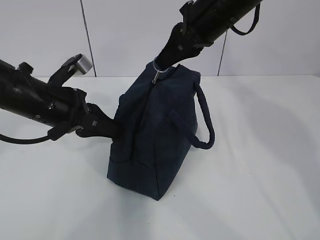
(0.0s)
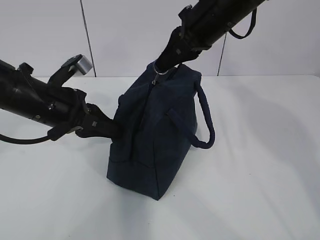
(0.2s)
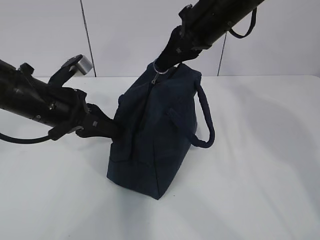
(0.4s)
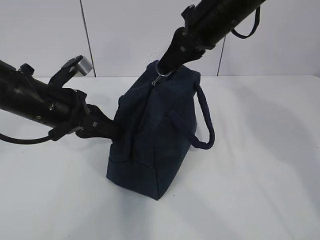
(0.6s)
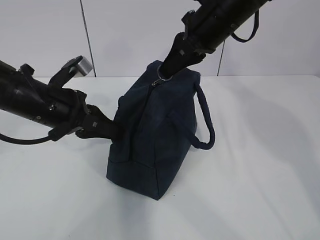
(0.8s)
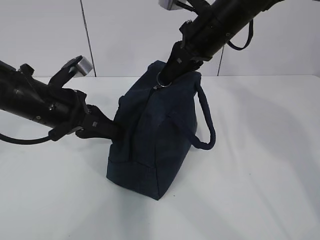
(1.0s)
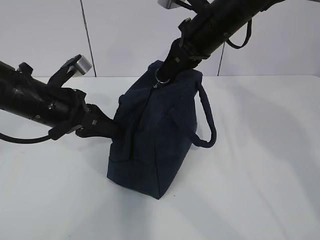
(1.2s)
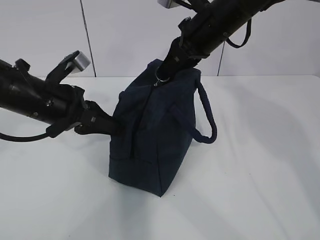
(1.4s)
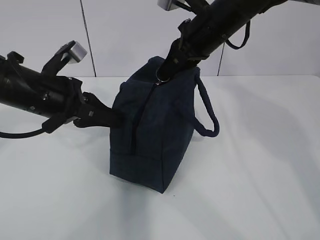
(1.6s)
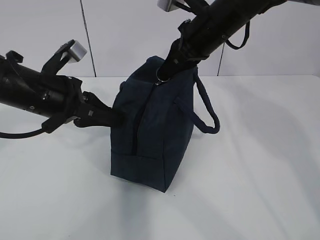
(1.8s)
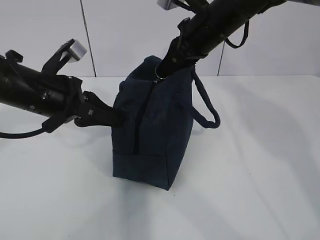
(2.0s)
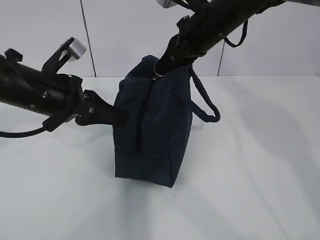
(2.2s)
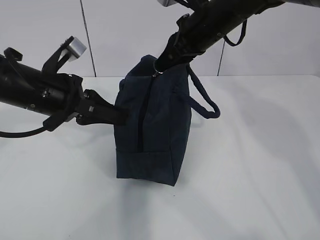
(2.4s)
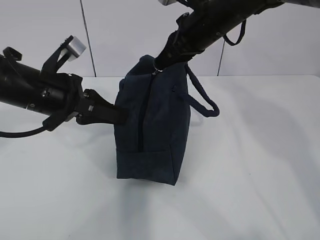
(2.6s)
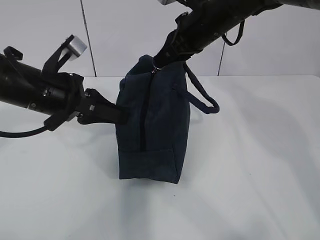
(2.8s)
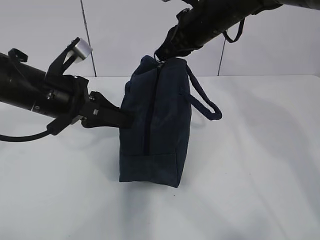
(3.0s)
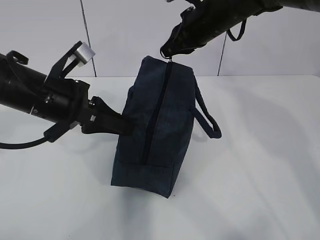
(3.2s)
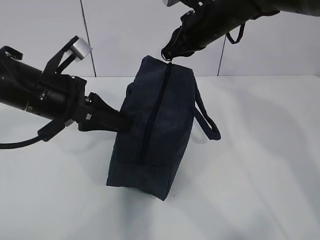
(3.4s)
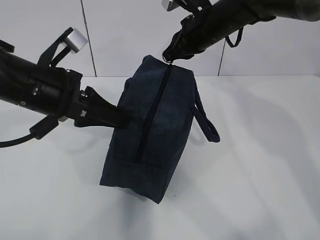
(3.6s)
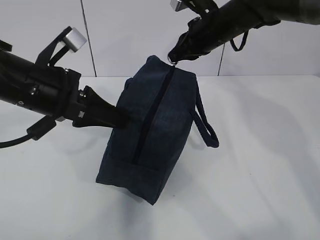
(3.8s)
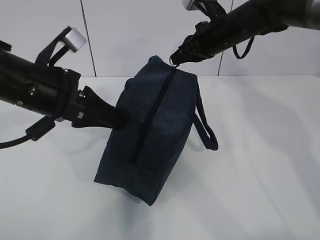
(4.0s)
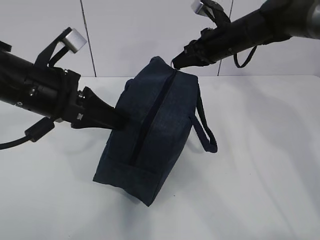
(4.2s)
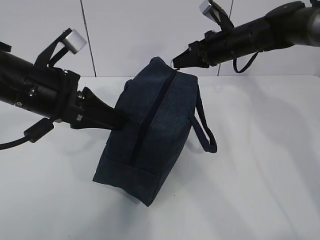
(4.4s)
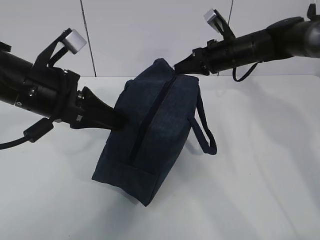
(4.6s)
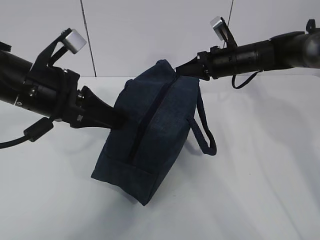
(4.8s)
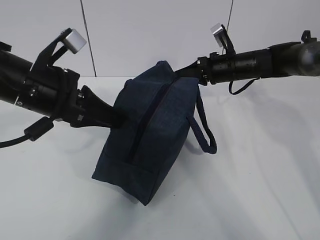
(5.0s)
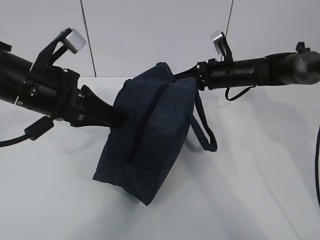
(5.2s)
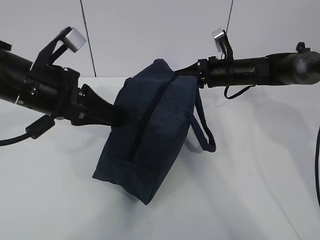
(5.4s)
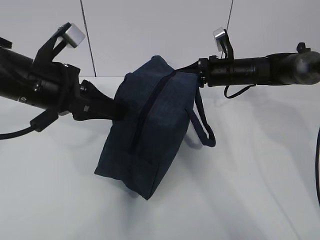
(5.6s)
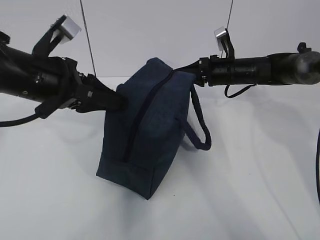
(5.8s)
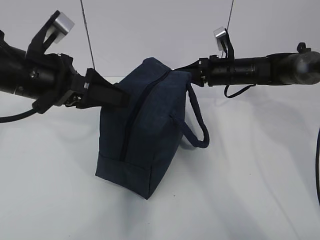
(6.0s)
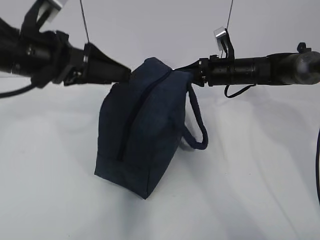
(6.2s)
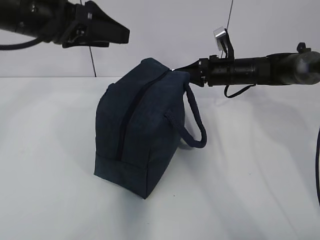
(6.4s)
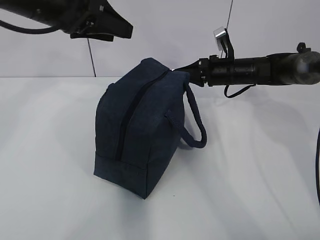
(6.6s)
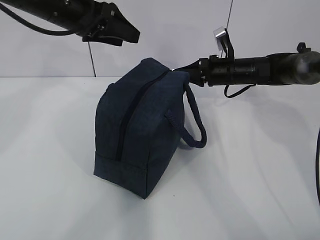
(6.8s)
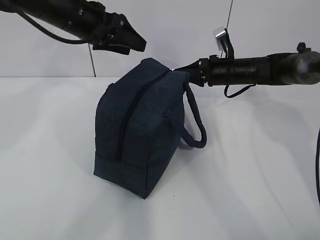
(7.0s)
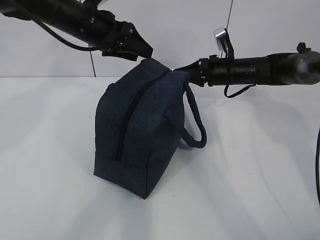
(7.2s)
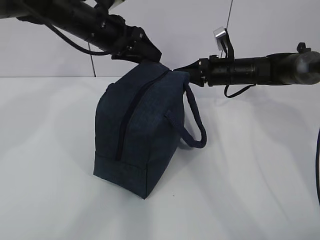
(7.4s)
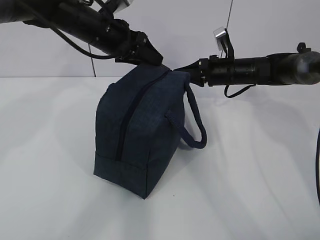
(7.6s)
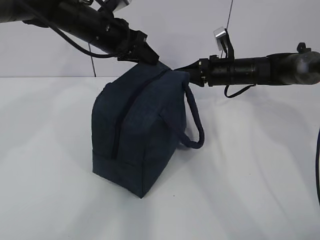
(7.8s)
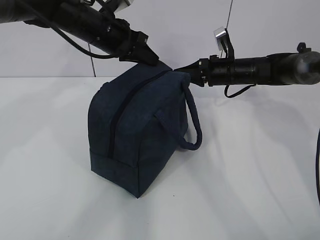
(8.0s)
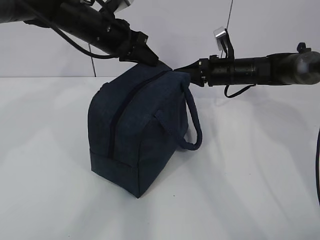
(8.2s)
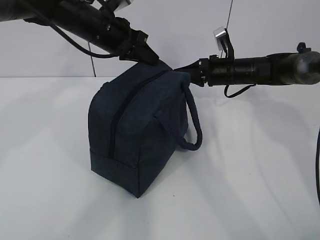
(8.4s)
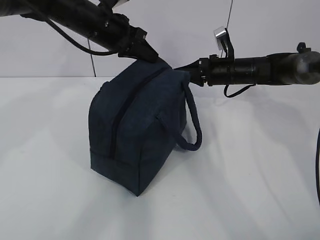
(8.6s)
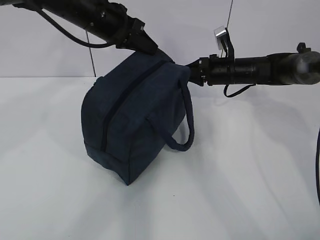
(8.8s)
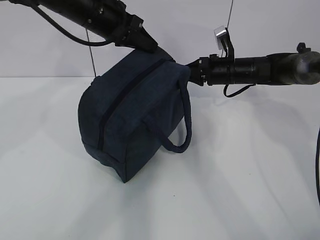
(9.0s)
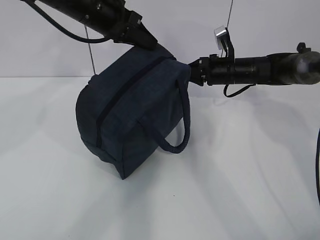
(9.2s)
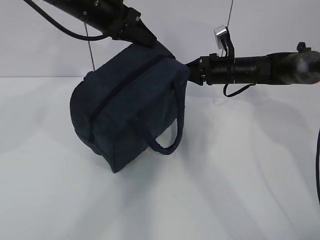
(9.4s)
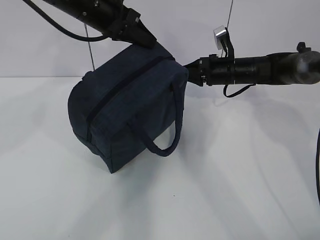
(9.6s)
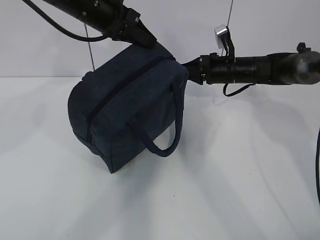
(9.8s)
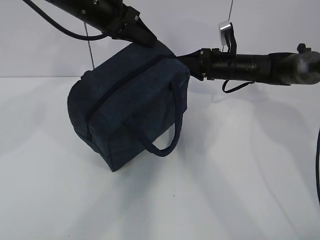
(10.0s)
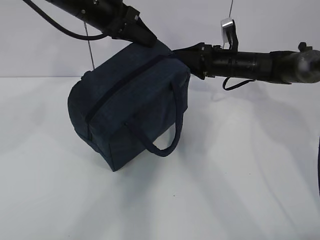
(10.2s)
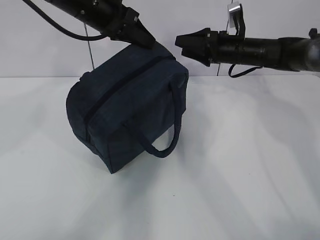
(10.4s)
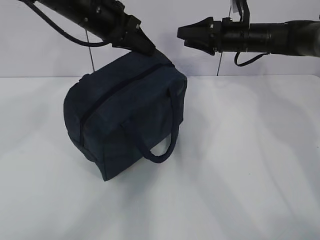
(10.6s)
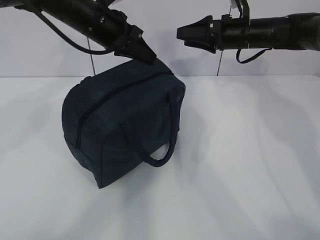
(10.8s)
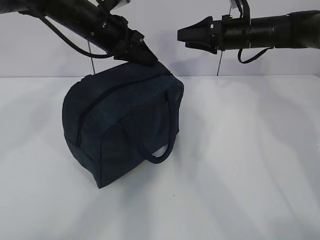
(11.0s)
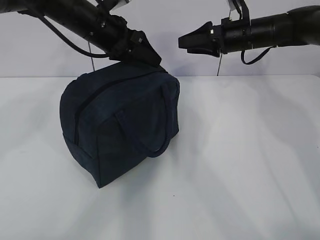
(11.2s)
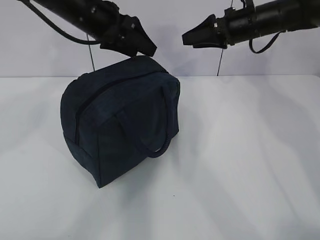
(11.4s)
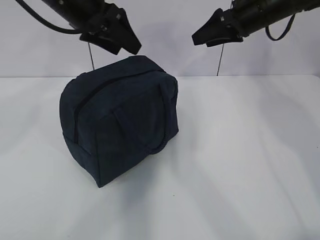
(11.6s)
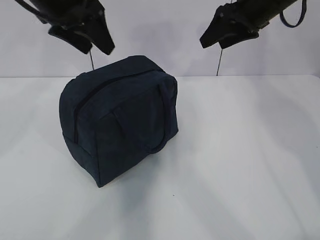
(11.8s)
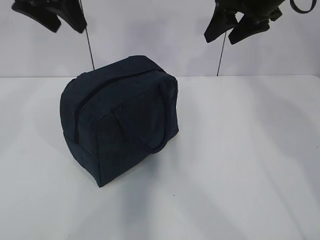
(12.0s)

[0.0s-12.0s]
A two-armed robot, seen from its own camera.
0.0s to 3.0s: There are only small adjustments of the grippers.
3.0s to 4.4s: The right gripper is displaced downward and to the right by about 10 cm.
4.4s to 6.0s: The right gripper is displaced downward by roughly 5 cm. The left gripper opens its fingers.
6.0s to 7.6s: The left gripper heads forward and to the right, covering roughly 15 cm.
7.6s to 9.0s: The left gripper closes up.
9.0s to 10.4s: The right gripper moves upward, roughly 5 cm, and opens up.
10.4s to 12.0s: The right gripper moves upward and backward, about 15 cm. The left gripper goes approximately 15 cm upward, to the left and backward, and opens.

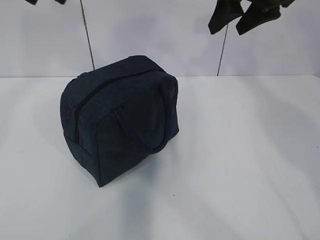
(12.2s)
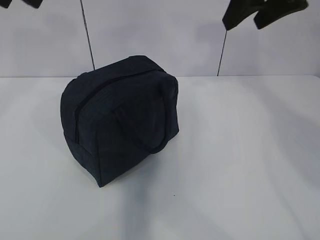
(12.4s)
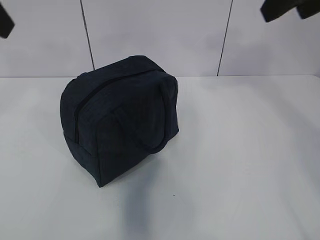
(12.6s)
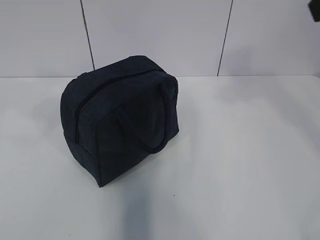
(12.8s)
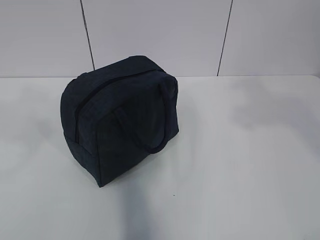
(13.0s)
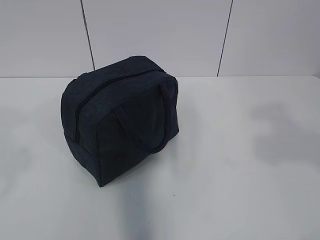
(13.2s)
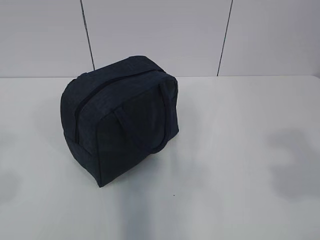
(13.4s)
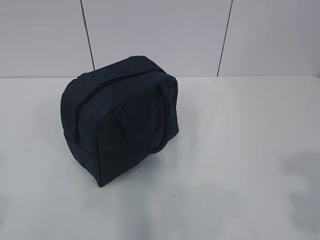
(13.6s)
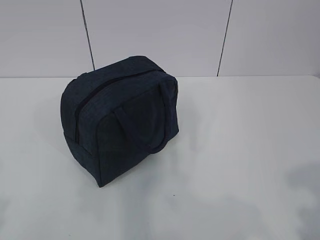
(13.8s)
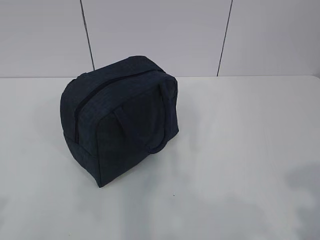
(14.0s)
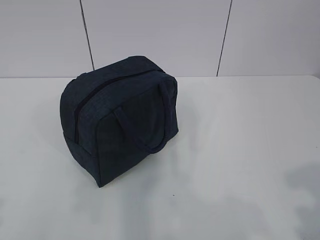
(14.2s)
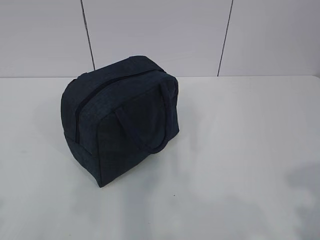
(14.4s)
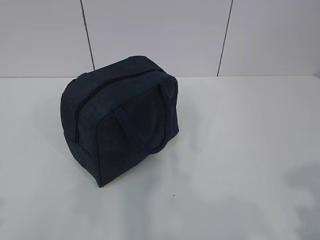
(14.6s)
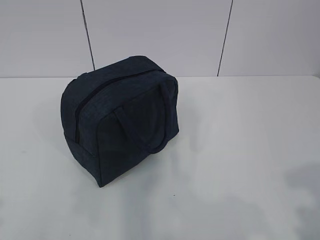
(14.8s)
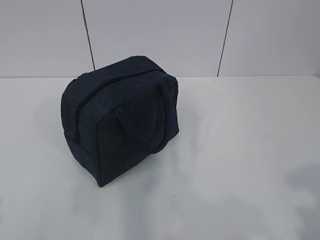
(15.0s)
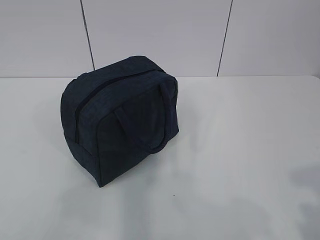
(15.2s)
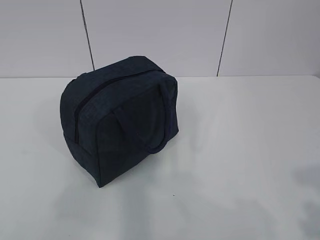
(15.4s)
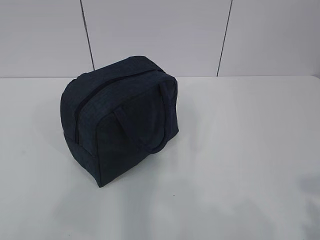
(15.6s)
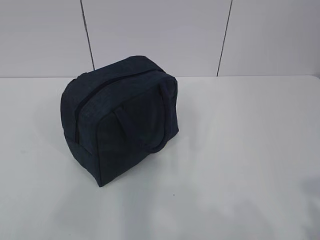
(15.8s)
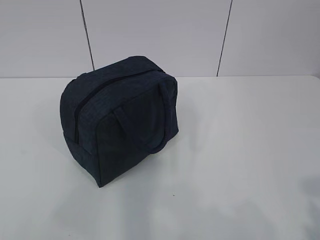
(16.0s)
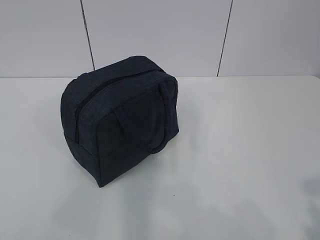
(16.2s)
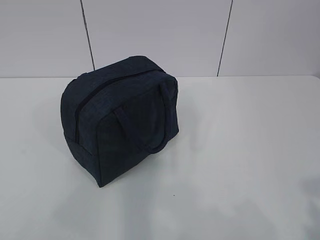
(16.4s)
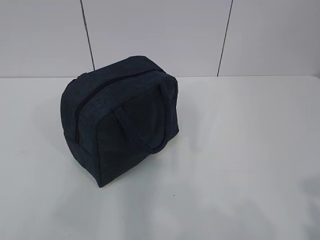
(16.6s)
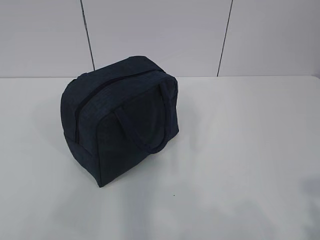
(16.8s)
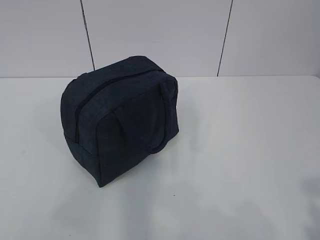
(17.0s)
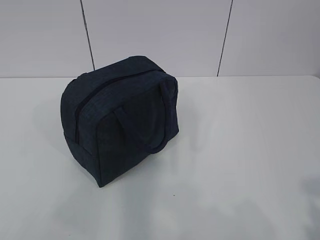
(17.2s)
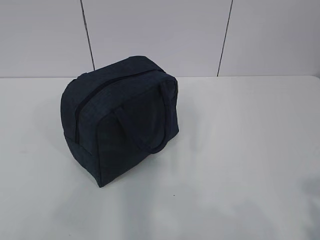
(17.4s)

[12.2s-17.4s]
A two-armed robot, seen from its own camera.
12.2s to 14.0s: The right gripper is displaced backward by some 35 cm. Meanwhile the left gripper is displaced backward and downward by about 35 cm.
15.6s to 17.4s: Neither gripper changes place.

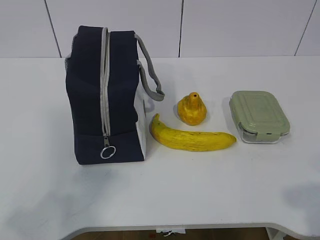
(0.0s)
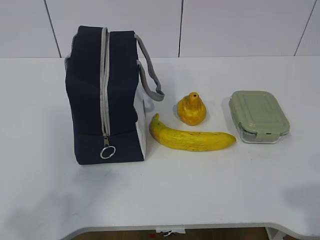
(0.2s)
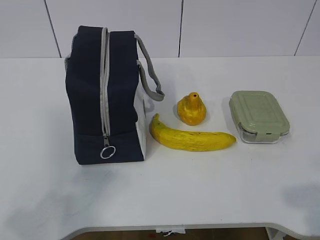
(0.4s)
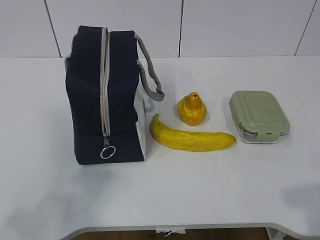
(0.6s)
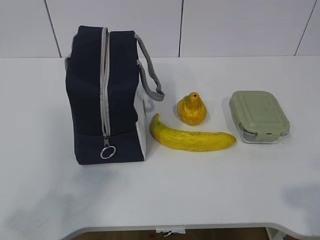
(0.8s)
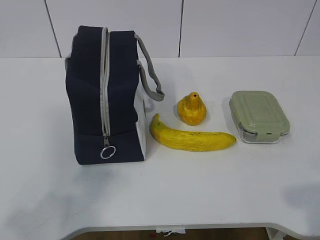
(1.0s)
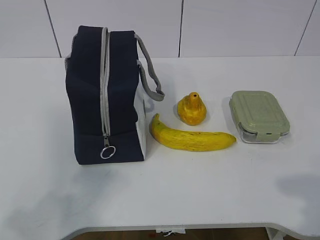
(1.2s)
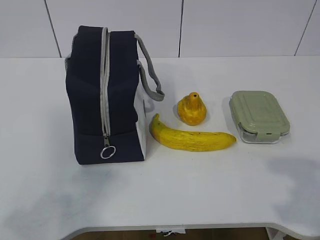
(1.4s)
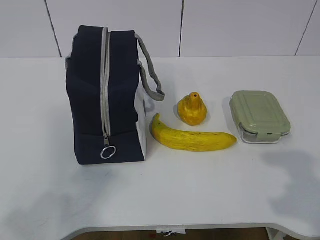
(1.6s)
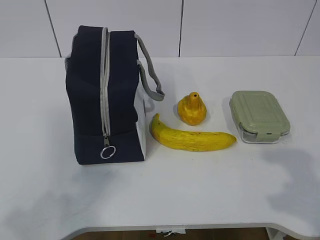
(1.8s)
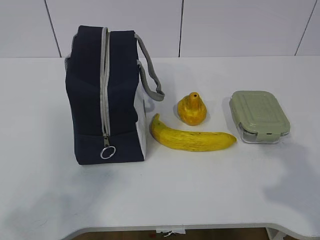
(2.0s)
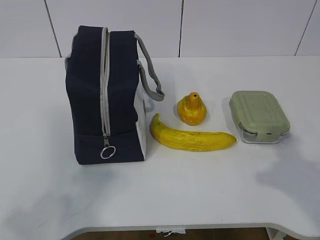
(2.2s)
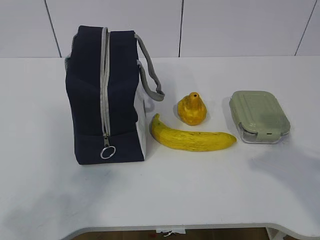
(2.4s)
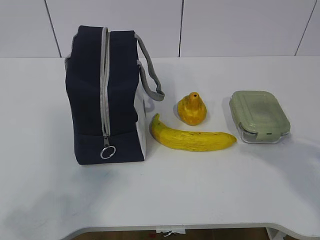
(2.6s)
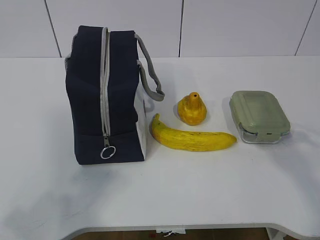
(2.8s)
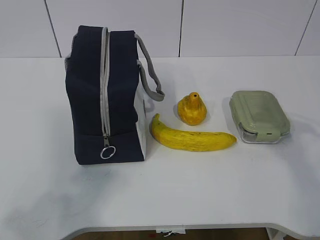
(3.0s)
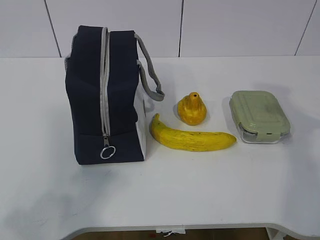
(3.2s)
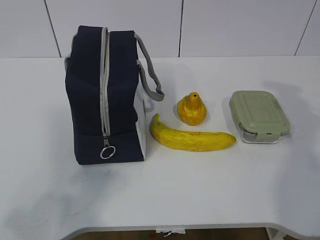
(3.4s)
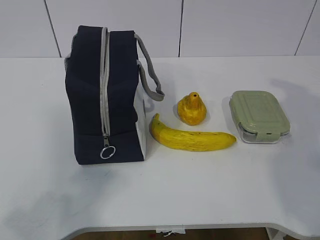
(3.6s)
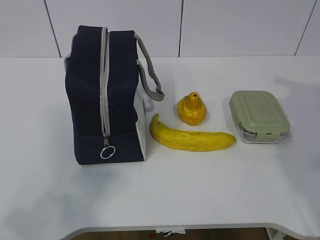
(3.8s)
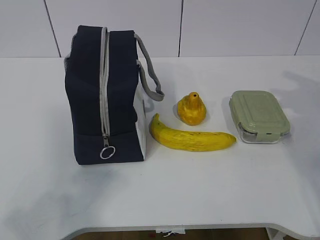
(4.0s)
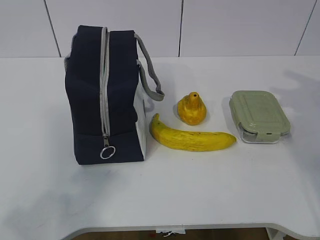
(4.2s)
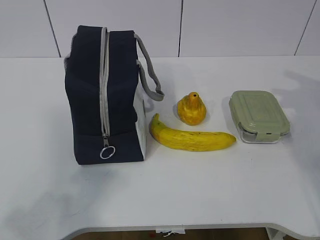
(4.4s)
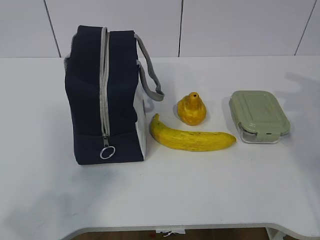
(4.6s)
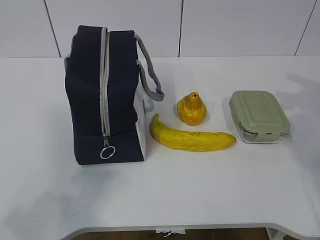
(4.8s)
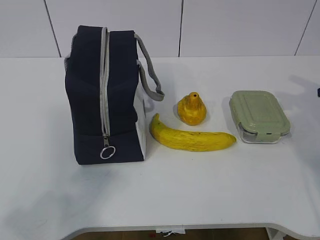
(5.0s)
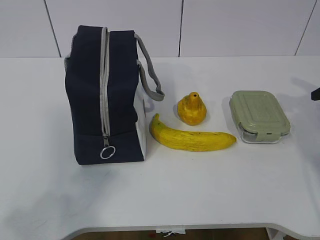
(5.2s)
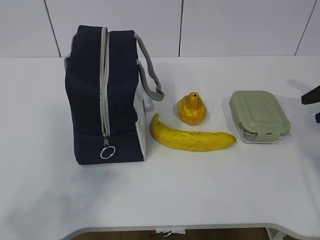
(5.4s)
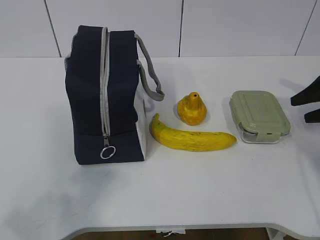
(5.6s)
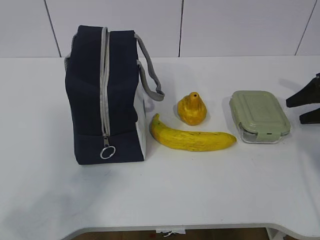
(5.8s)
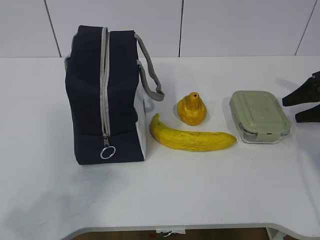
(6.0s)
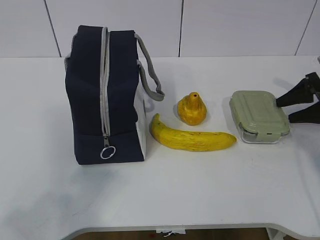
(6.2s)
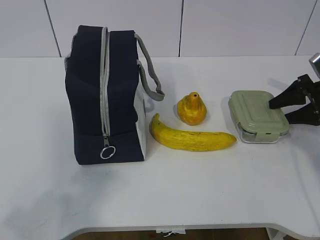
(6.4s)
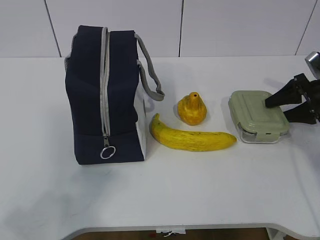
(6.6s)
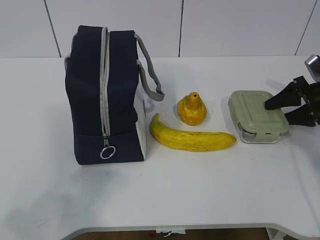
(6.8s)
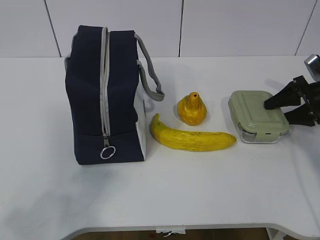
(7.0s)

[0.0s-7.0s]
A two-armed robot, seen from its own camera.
1.4s to 2.8s: The right gripper moves forward, some 15 cm.
4.2s to 5.6s: The right gripper shifts approximately 10 cm downward, and opens.
5.6s to 7.0s: The right gripper changes place by some 5 cm.
